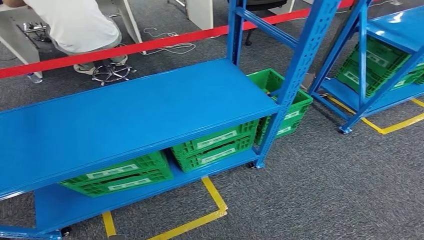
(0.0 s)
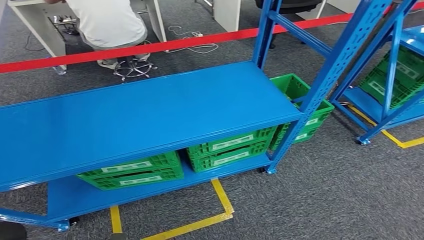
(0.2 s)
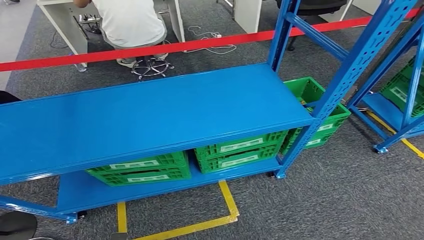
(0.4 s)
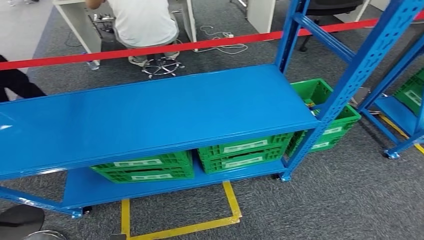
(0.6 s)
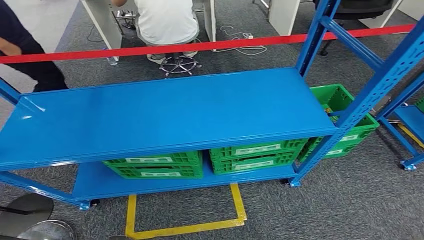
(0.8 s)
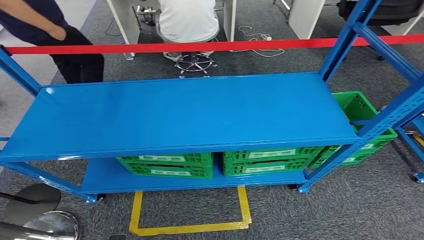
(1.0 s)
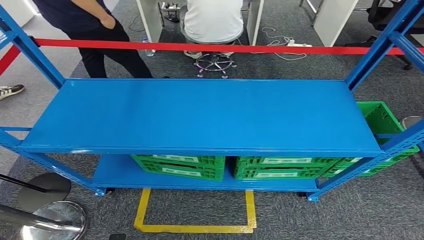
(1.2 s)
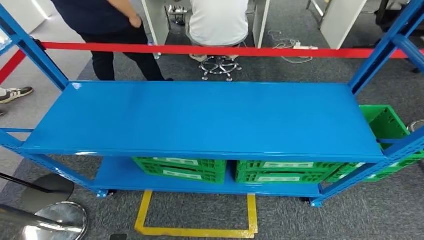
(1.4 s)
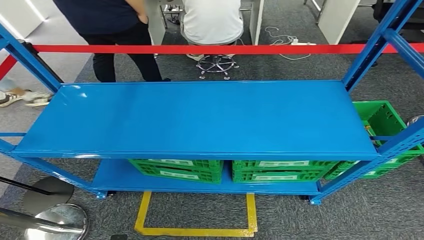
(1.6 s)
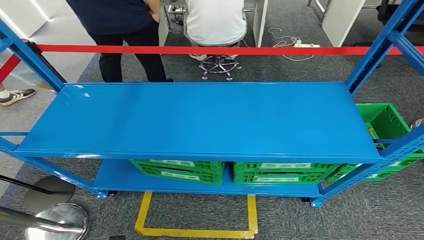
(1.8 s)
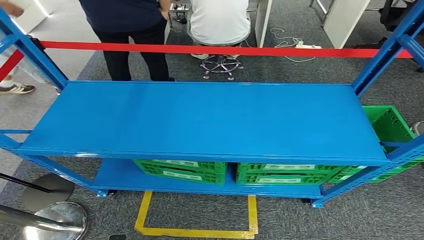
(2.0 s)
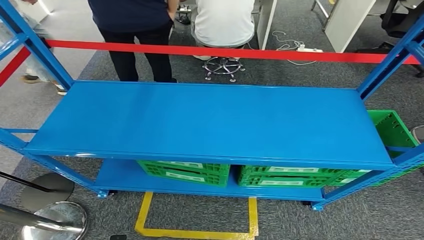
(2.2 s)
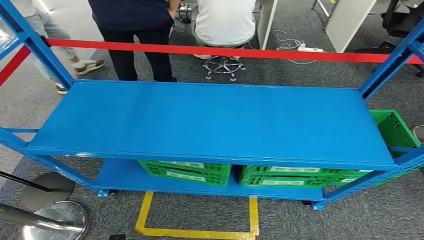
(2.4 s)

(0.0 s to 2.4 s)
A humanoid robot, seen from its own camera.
Step, 0.0 s - 2.4 s: Return to the initial position at the workbench.
